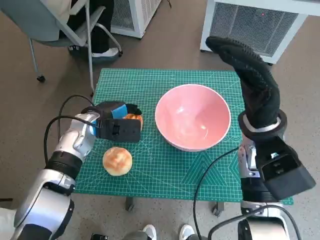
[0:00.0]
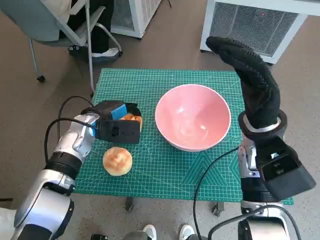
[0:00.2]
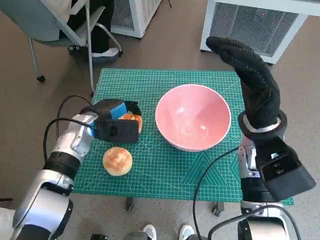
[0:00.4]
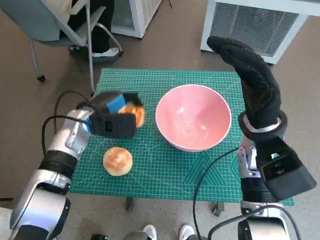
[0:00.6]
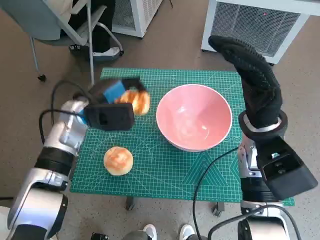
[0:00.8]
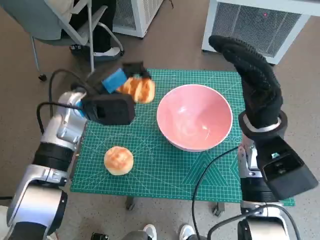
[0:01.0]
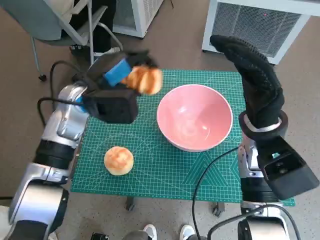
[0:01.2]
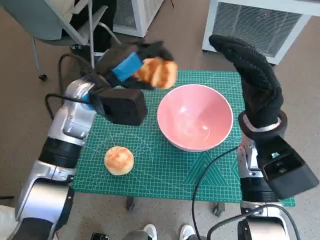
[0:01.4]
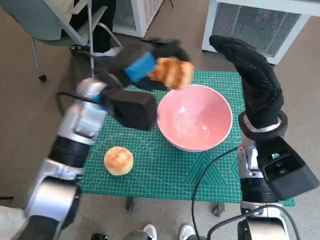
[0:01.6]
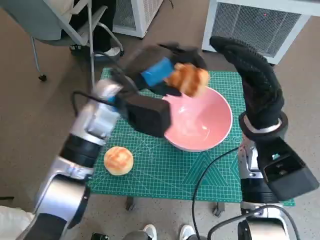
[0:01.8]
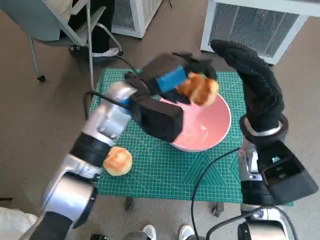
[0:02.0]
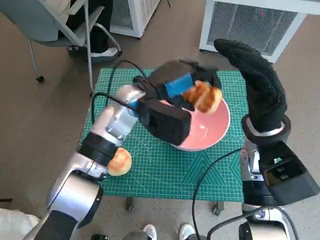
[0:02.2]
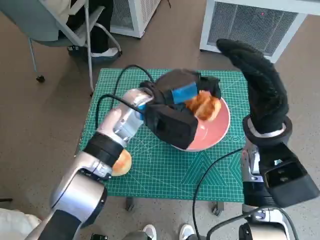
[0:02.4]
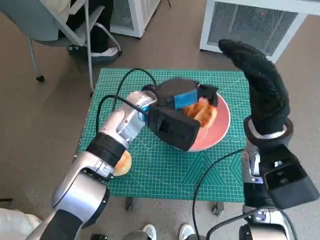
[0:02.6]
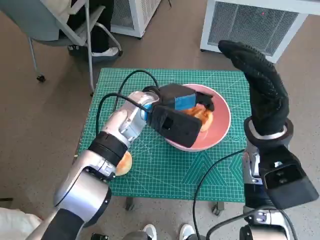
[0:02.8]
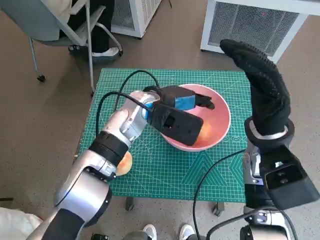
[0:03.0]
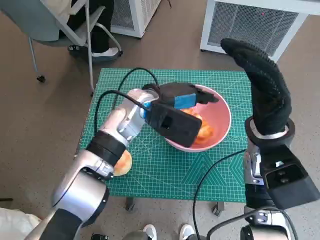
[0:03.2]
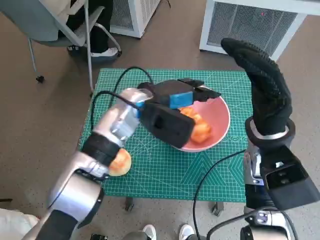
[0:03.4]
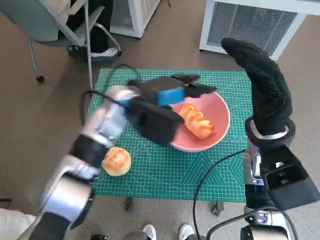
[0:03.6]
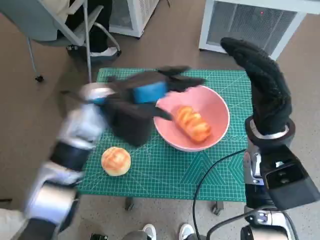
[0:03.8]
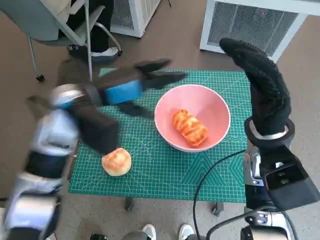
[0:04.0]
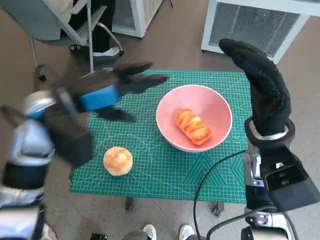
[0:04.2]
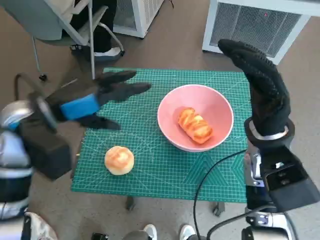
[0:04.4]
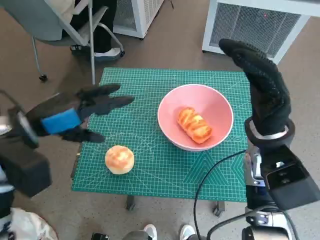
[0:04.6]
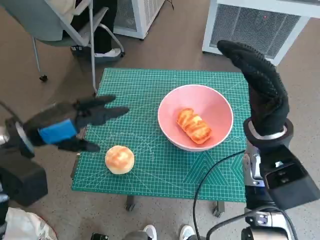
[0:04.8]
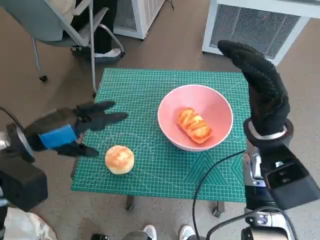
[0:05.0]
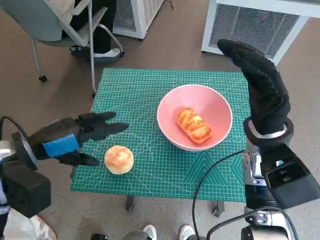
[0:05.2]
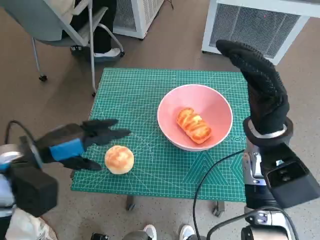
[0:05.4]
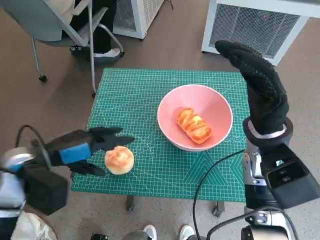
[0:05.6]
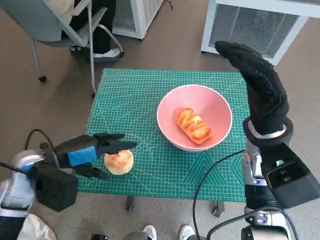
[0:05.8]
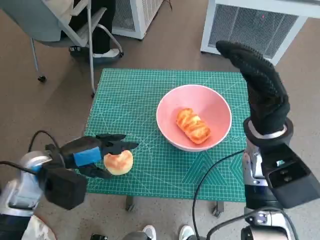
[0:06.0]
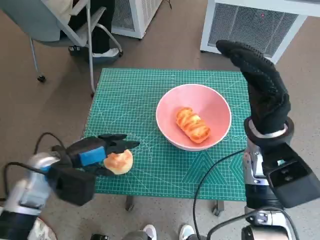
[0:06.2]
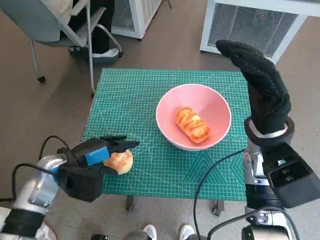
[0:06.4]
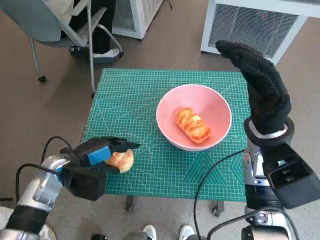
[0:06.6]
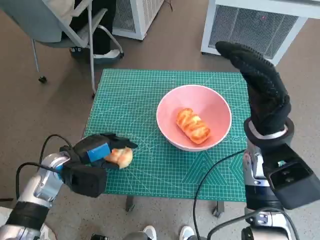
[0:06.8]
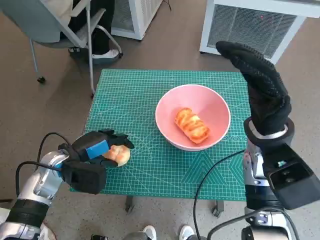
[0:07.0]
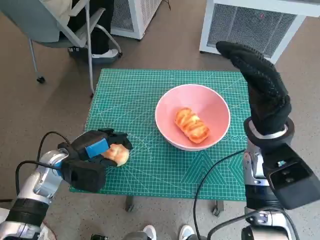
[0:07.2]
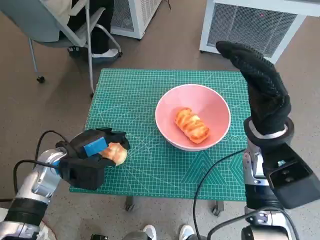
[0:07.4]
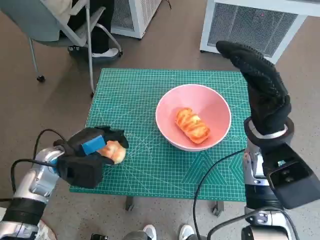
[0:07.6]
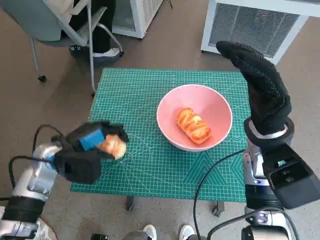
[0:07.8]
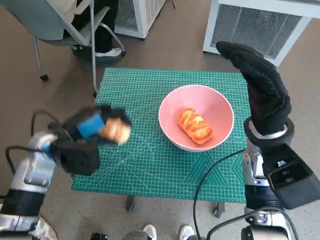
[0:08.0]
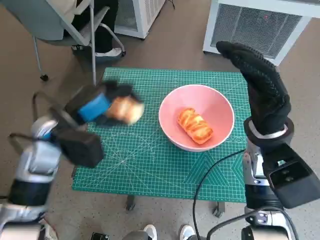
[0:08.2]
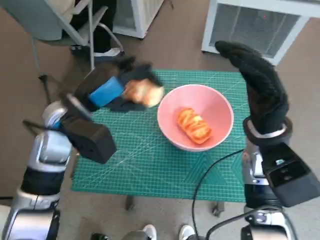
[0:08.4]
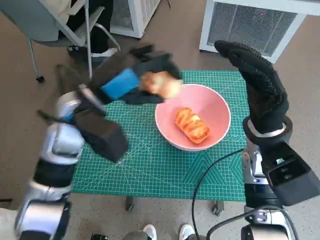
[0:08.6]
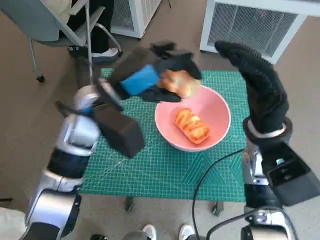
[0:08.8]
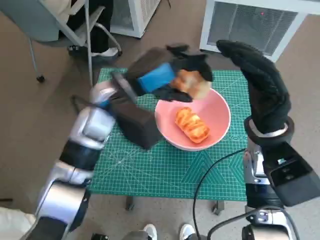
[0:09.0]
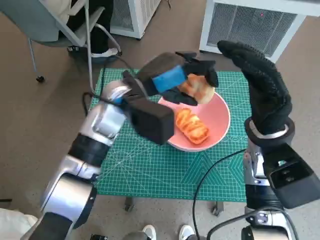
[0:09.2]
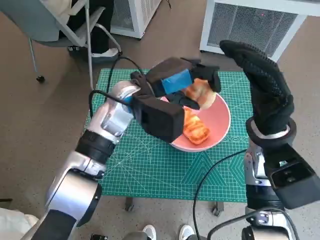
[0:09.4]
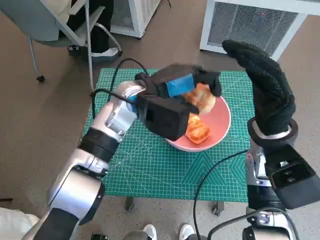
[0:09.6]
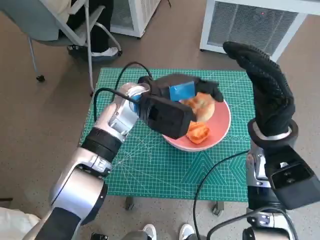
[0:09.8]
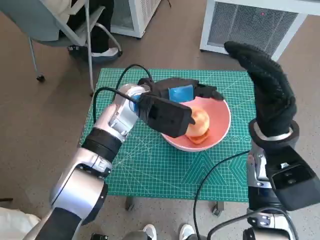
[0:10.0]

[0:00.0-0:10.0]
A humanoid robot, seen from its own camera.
Task of the whole recording: Push the bowl to the center of the table and put the bread into the bowl.
Step, 0:00.2 to 0:03.2: Place the long bread in pink bowl with left hand.
Step, 0:03.4 to 0:06.8: Grasp the round bread with left hand.
0:00.0 to 0:01.4: The left hand goes about 10 cm upward.
0:01.4 to 0:02.8: The left hand travels to the right by about 10 cm.
0:02.8 to 0:04.2: The left hand goes some 15 cm to the left, upward and backward.
0:04.2 to 0:05.8: The left hand goes some 10 cm downward, backward and to the left.
0:05.8 to 0:07.2: The left hand goes some 5 cm downward.
0:07.2 to 0:08.6: The left hand goes approximately 15 cm upward and to the right.
0:08.6 to 0:10.0: The left hand moves to the right and forward, approximately 10 cm.

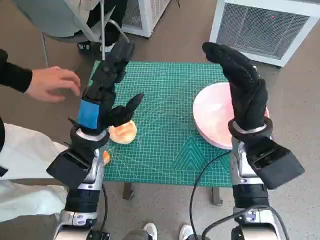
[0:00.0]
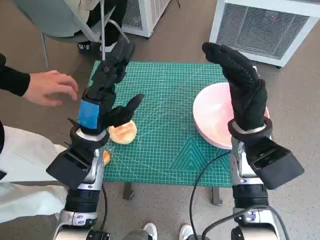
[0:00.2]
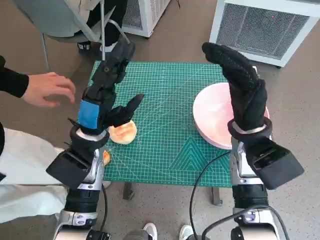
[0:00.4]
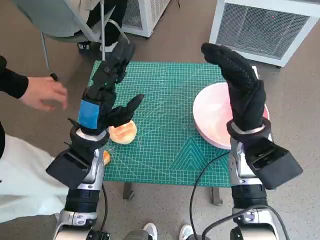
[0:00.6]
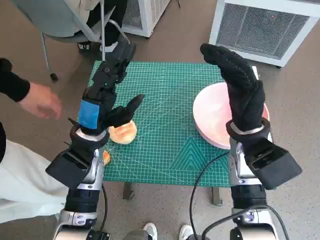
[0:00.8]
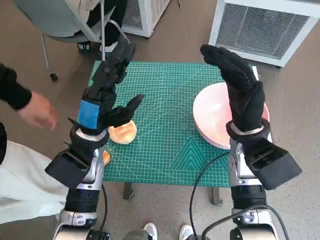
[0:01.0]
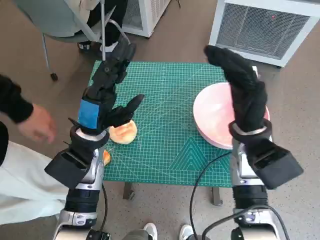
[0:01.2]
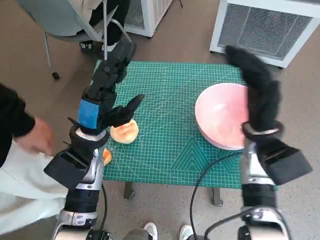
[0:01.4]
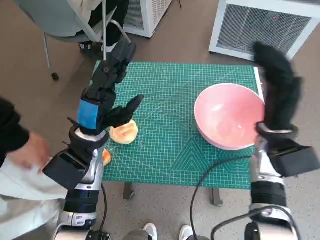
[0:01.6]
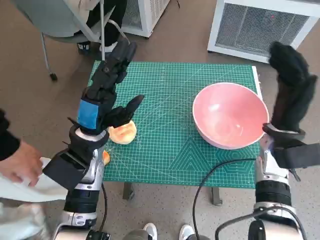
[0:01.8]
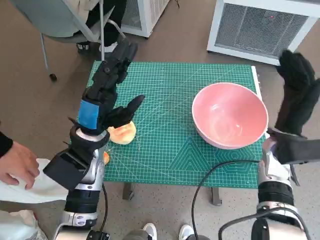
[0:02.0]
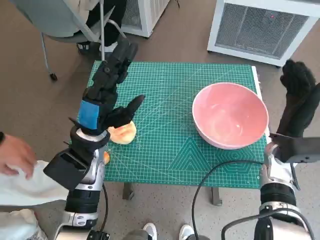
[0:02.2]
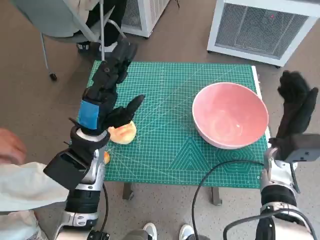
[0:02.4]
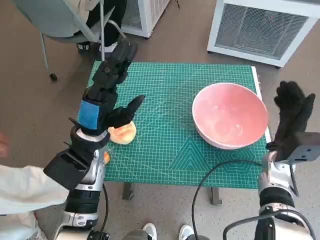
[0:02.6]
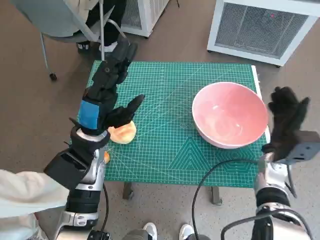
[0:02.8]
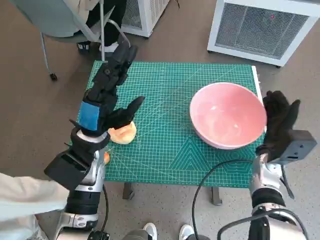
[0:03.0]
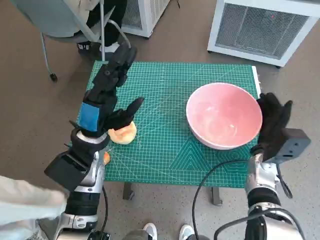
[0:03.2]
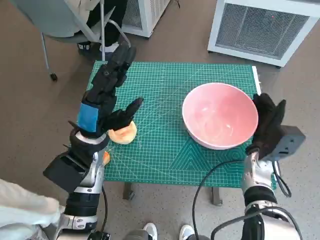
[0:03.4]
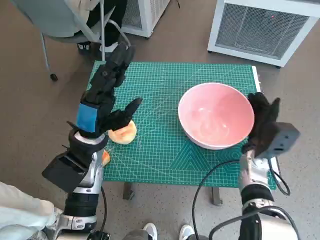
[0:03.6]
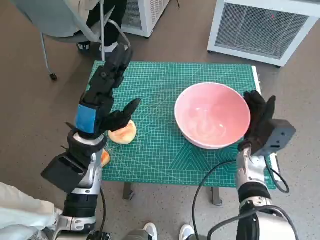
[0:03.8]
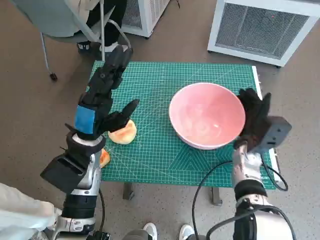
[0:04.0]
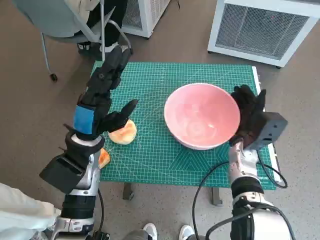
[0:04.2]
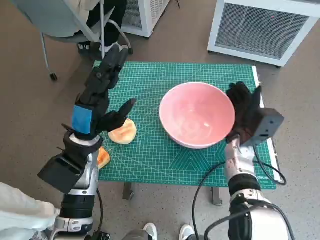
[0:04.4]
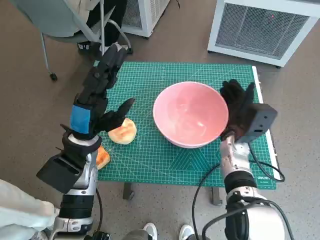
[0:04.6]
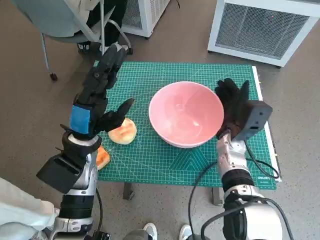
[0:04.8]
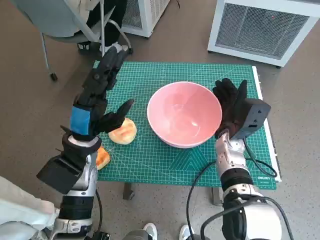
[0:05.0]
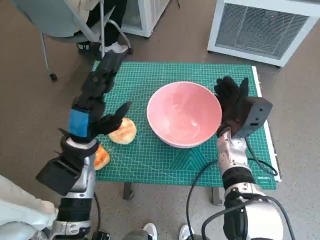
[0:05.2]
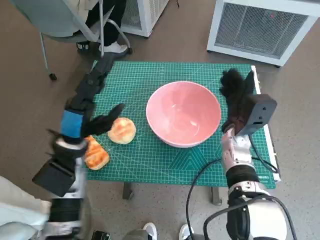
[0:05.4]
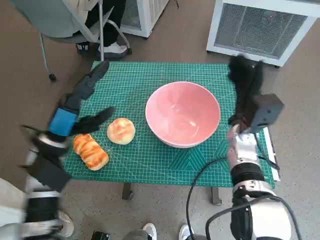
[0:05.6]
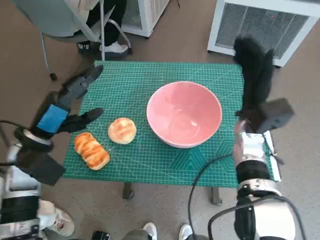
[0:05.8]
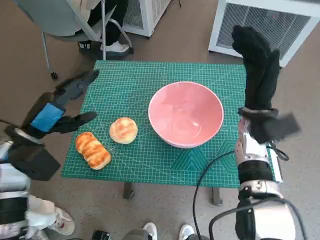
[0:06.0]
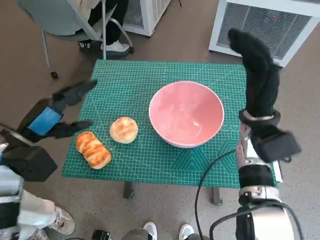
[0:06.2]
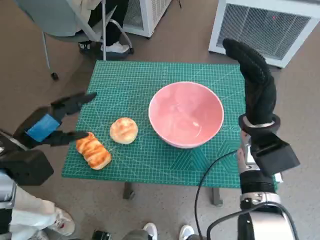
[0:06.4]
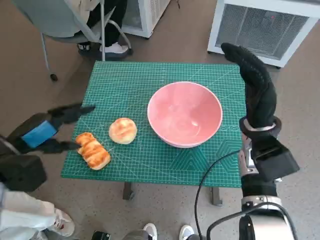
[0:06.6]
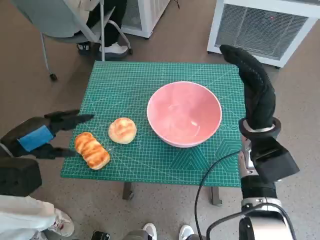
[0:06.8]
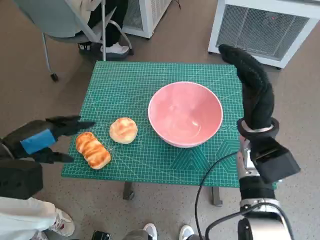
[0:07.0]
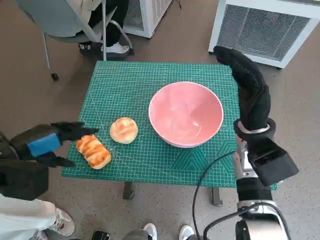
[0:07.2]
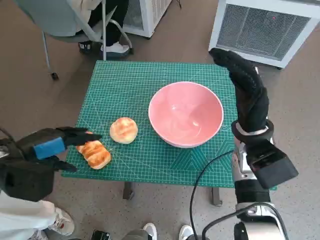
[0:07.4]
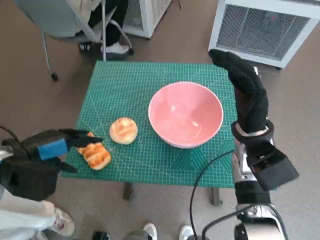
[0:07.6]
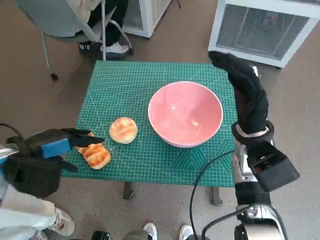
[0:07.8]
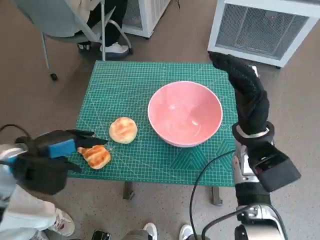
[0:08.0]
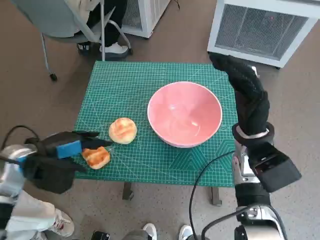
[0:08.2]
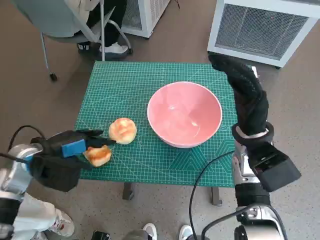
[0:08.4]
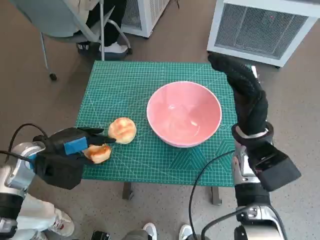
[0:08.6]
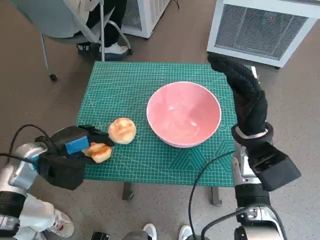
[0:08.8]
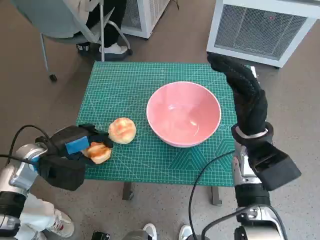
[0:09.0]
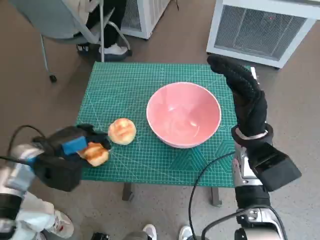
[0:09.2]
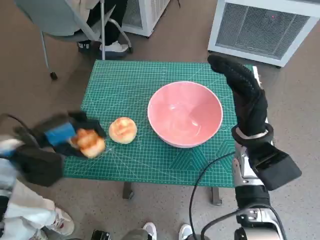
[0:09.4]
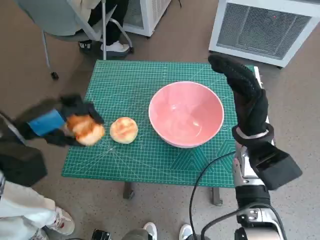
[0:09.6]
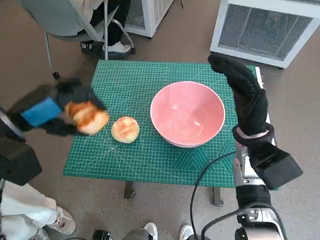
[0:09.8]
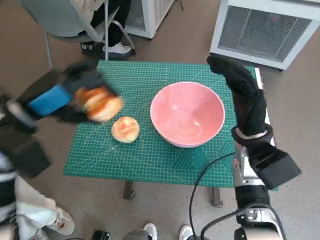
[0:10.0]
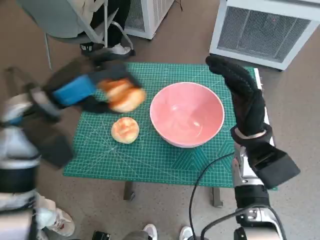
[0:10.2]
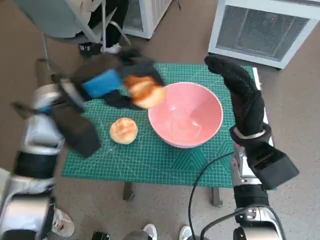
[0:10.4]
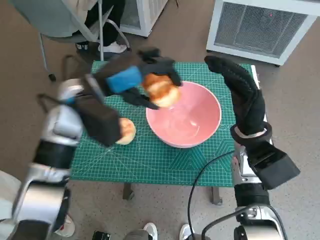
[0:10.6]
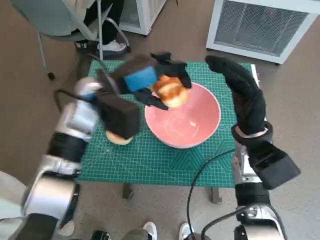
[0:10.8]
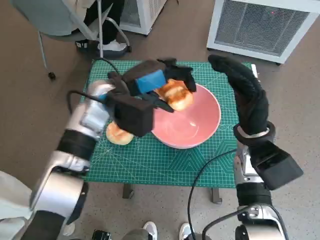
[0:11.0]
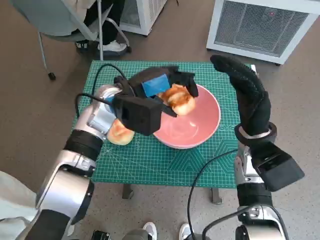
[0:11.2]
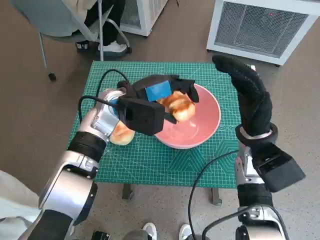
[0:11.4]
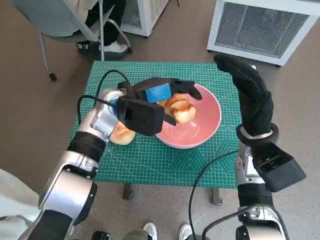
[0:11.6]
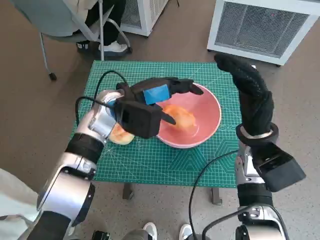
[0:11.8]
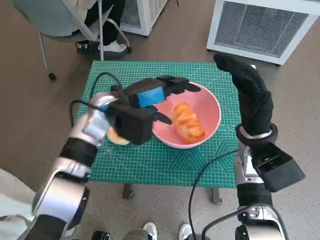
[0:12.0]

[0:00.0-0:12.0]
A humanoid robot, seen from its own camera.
Task of the whole recording: Push the bowl to the center of the table and put the bread into the bowl.
Step, 0:00.0 to 0:05.6: Move the pink bowl to the center of table with right hand.
Step, 0:05.8 to 0:08.6: Grasp the long bread with left hand.
0:01.6 to 0:03.0: The right hand travels downward by roughly 10 cm.
0:03.0 to 0:04.4: The right hand moves to the left, about 5 cm.
0:04.4 to 0:06.0: The right hand is displaced upward by about 10 cm. The left hand travels to the left by about 10 cm.
0:07.6 to 0:09.0: The left hand moves downward, roughly 5 cm.
0:09.0 to 0:10.4: The left hand shifts some 15 cm upward and to the right.
0:10.4 to 0:12.0: The left hand heads to the right and downward, covering approximately 10 cm.
